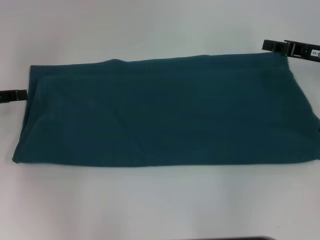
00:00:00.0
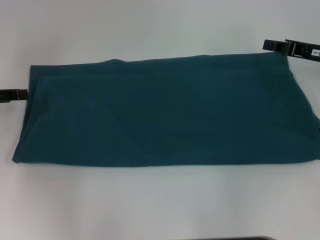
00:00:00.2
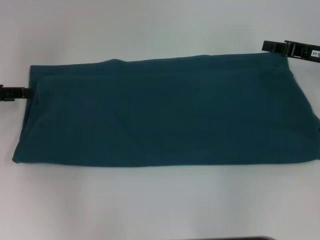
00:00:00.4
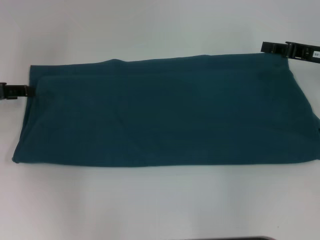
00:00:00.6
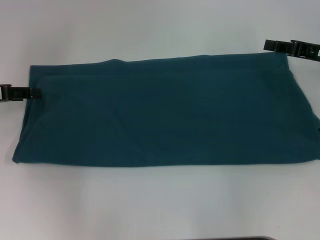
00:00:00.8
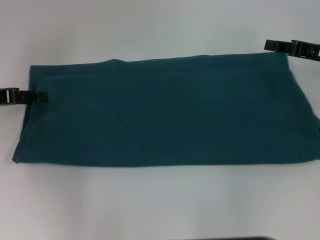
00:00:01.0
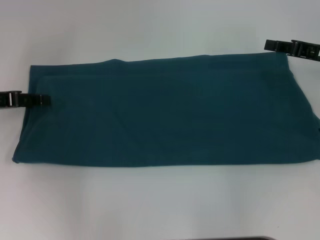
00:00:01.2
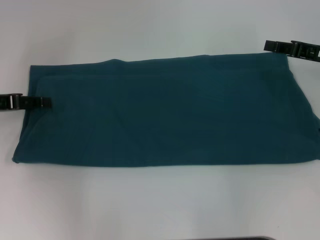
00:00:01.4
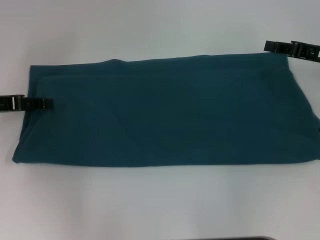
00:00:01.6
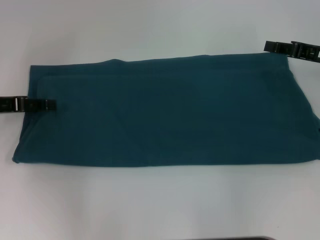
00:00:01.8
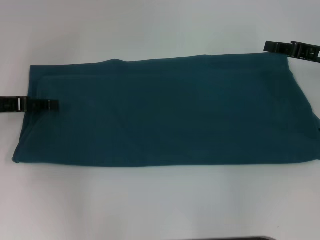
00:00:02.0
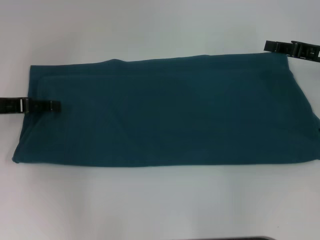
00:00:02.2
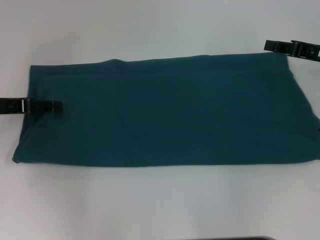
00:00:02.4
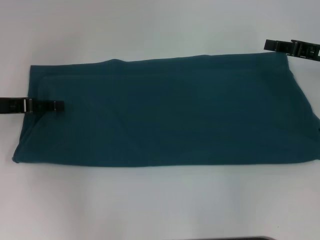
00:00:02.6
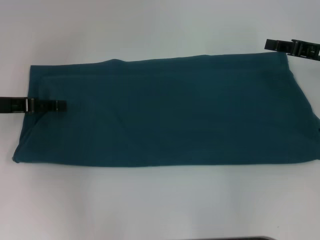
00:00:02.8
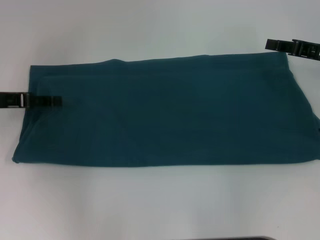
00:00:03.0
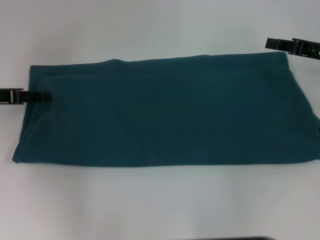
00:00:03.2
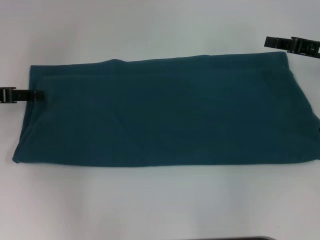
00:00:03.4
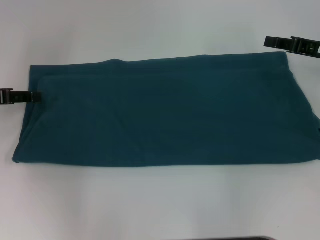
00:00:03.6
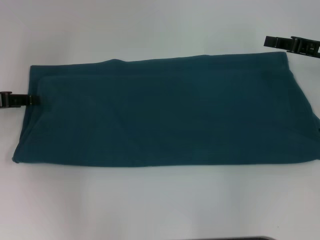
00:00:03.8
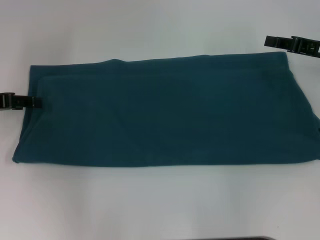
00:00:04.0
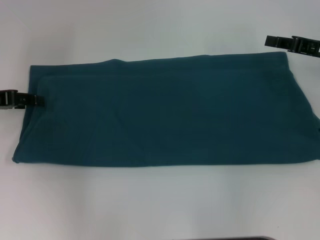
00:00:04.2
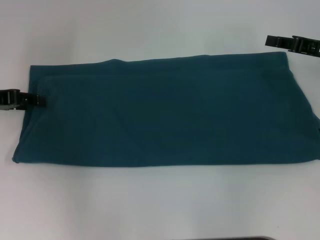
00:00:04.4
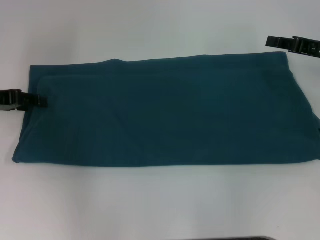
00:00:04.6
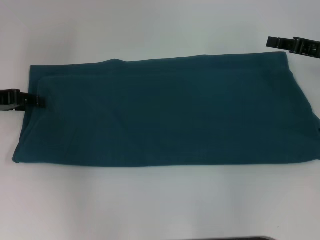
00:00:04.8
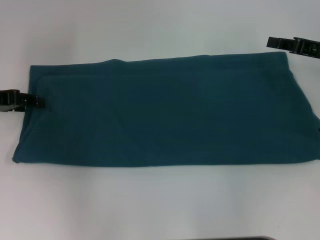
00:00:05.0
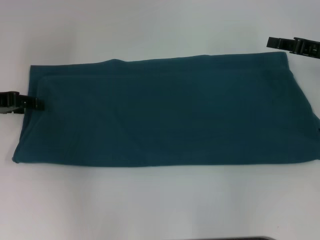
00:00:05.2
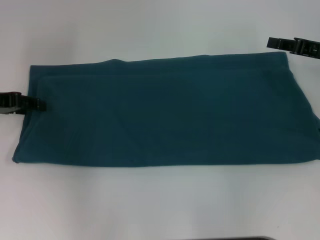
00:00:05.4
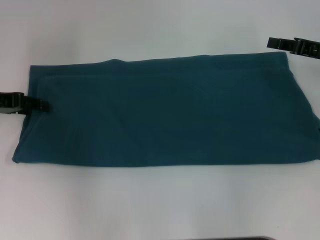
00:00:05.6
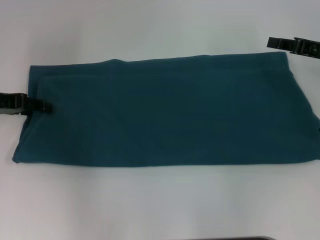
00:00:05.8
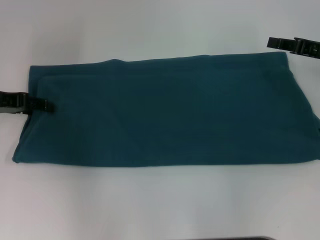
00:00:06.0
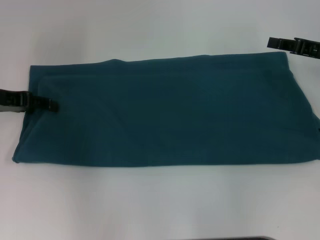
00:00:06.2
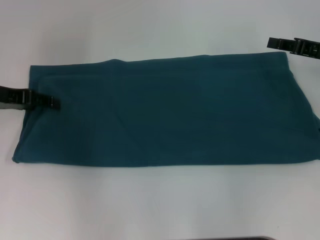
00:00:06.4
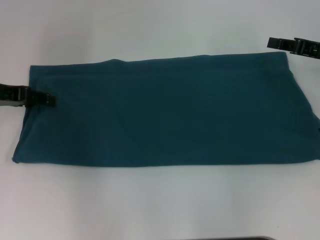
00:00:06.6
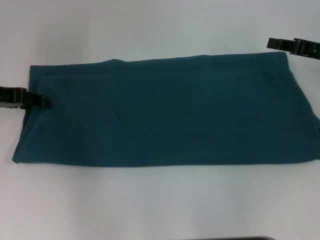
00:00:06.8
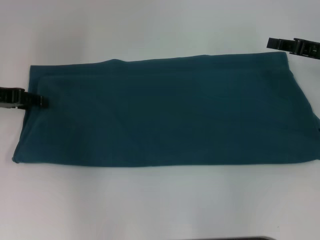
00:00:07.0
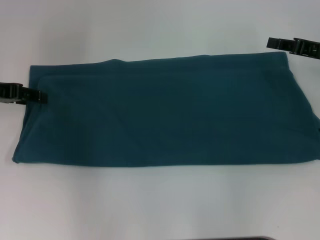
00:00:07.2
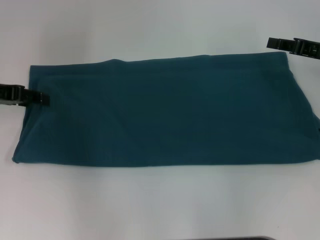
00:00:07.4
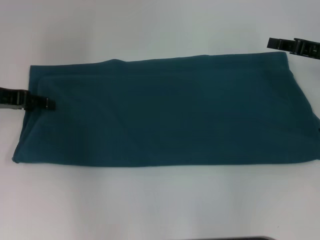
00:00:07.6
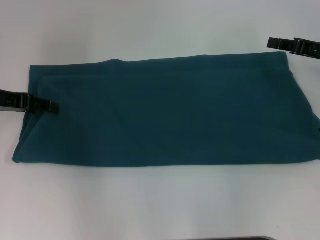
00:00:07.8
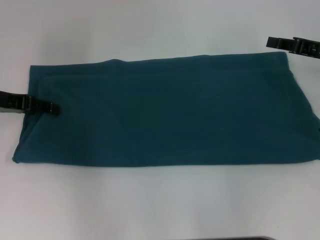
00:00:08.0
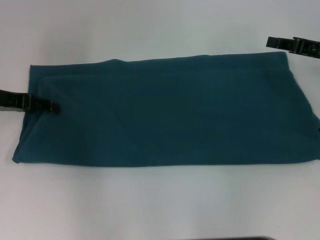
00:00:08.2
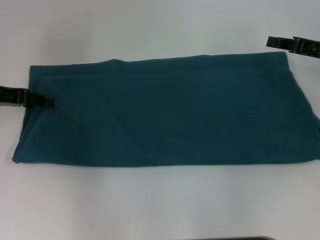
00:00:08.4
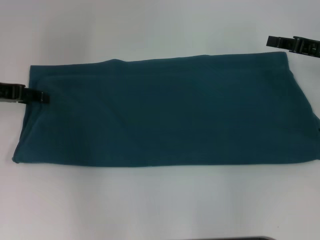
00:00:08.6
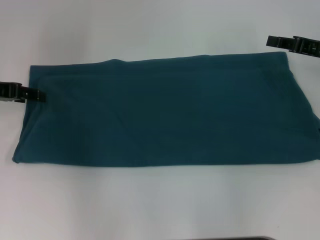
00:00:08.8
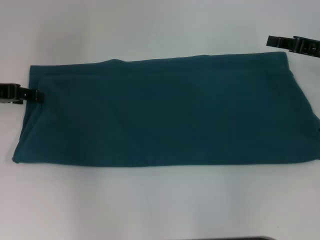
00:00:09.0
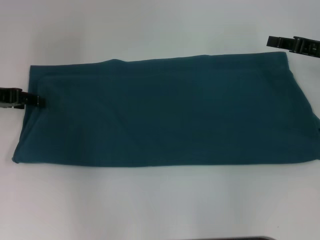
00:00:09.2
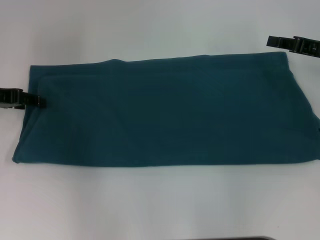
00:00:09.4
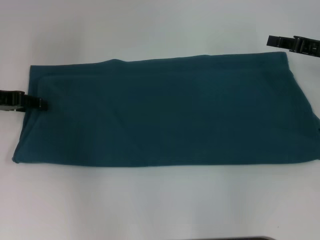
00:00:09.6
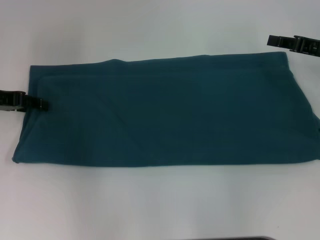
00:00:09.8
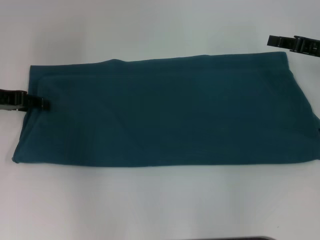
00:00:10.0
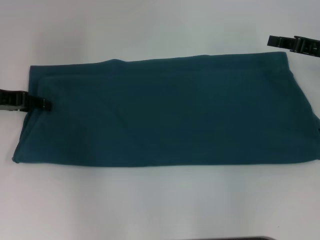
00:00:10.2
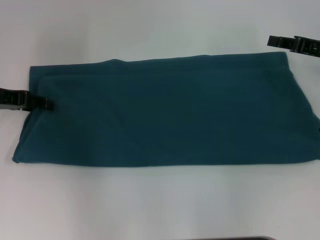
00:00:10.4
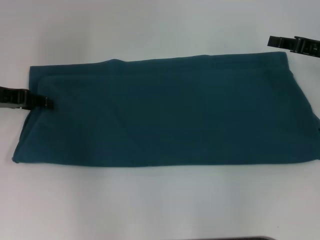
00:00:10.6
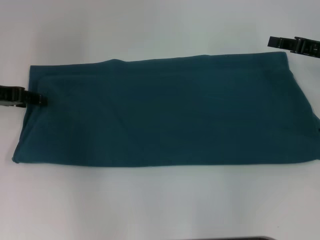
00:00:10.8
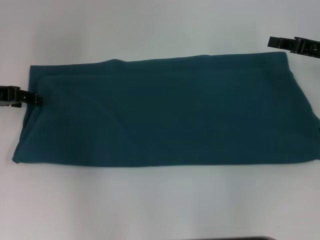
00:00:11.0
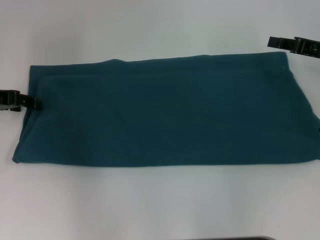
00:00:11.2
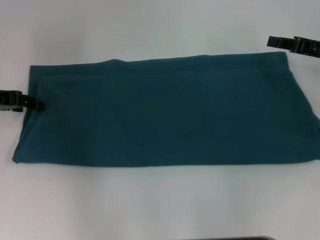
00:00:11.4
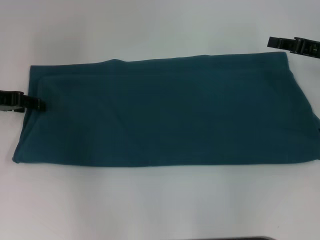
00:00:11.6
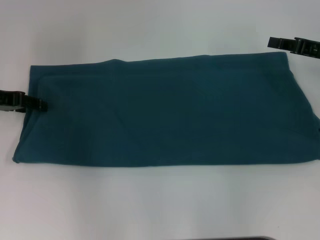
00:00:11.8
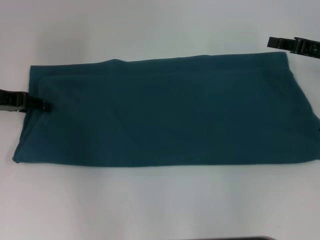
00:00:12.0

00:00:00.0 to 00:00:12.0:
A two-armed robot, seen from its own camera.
00:00:00.0 to 00:00:06.0: The grippers make only small movements.
00:00:07.6 to 00:00:09.0: Both grippers stay about where they are.
00:00:10.4 to 00:00:12.0: Both grippers stay about where they are.

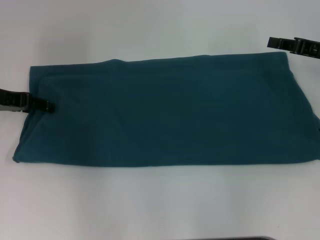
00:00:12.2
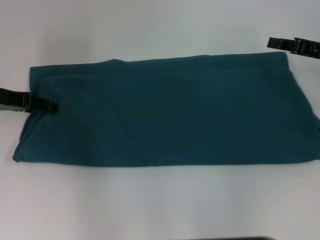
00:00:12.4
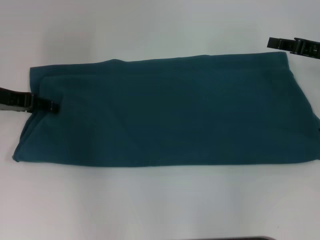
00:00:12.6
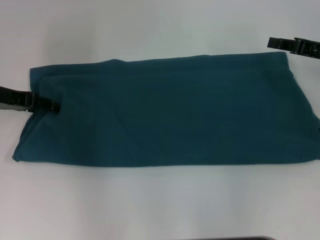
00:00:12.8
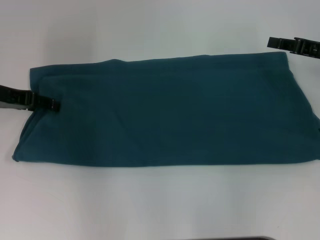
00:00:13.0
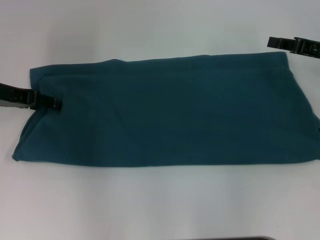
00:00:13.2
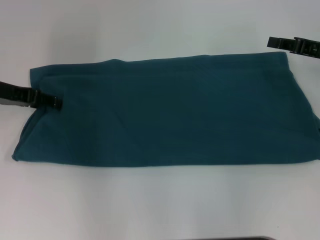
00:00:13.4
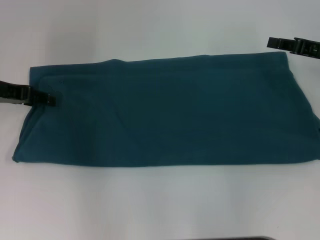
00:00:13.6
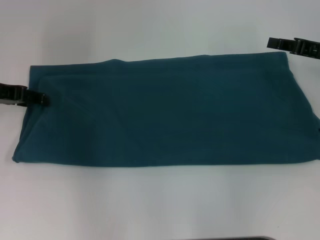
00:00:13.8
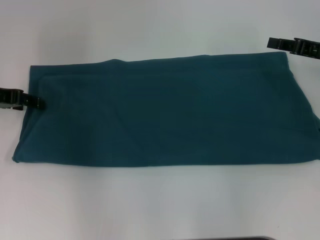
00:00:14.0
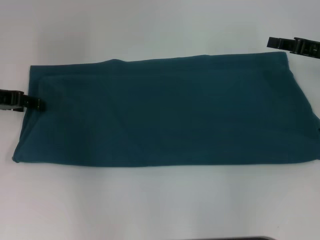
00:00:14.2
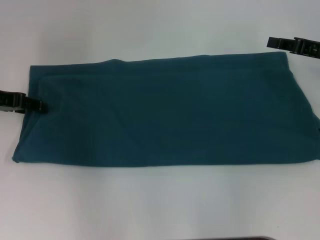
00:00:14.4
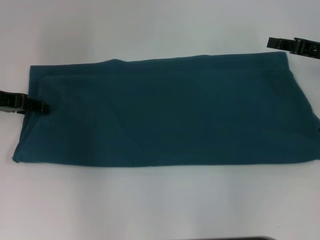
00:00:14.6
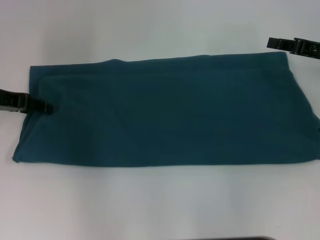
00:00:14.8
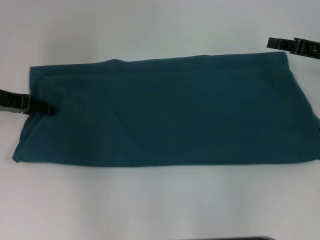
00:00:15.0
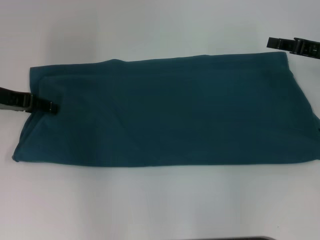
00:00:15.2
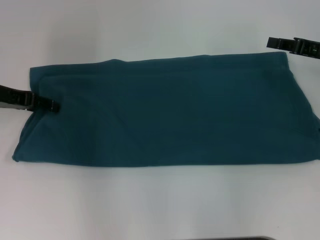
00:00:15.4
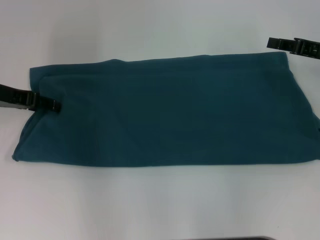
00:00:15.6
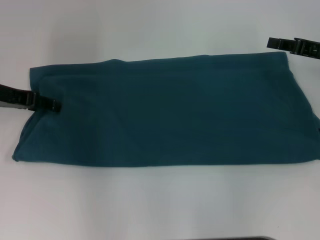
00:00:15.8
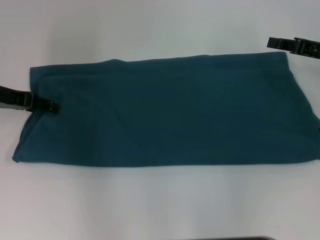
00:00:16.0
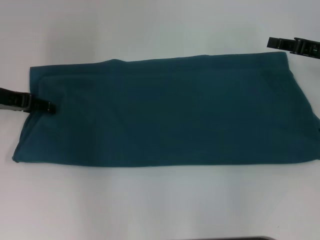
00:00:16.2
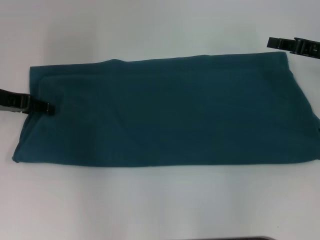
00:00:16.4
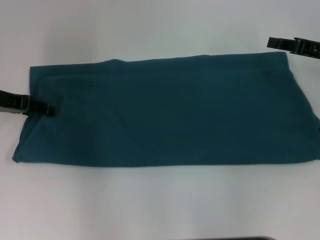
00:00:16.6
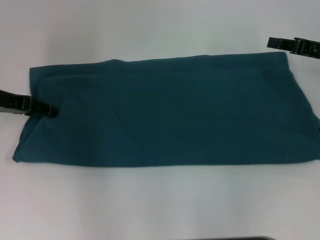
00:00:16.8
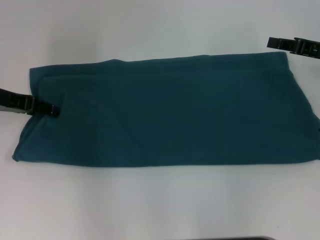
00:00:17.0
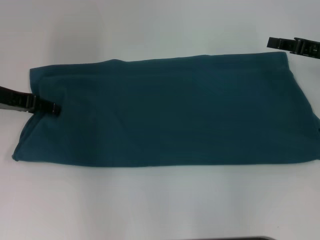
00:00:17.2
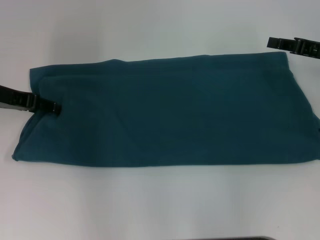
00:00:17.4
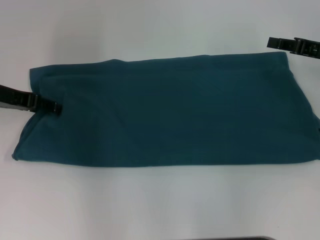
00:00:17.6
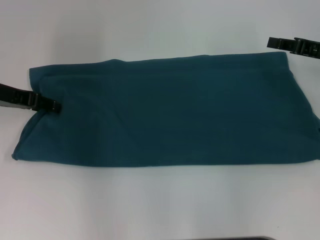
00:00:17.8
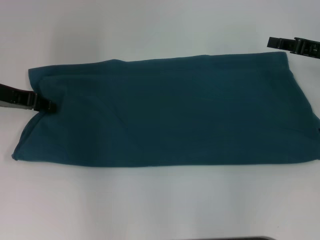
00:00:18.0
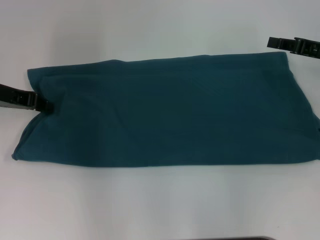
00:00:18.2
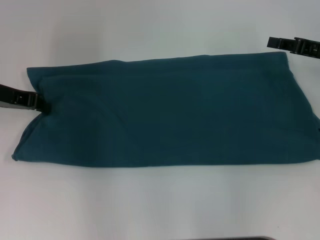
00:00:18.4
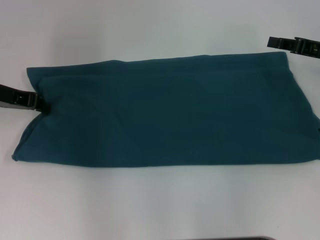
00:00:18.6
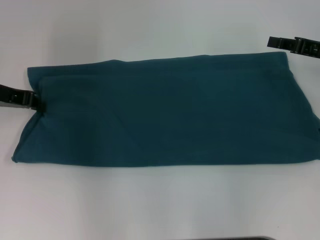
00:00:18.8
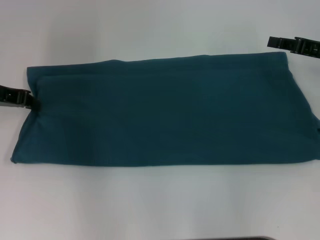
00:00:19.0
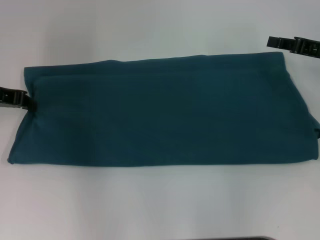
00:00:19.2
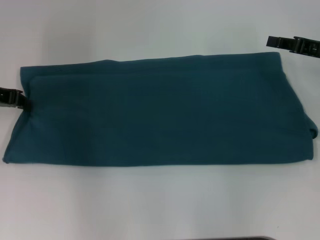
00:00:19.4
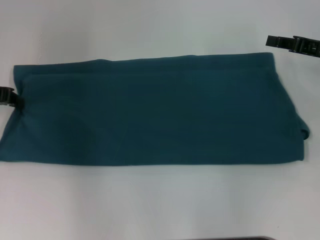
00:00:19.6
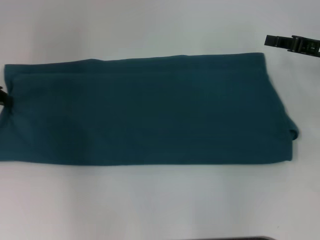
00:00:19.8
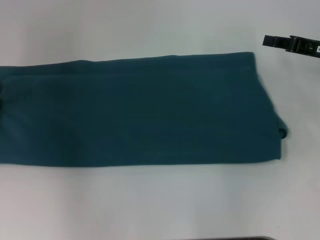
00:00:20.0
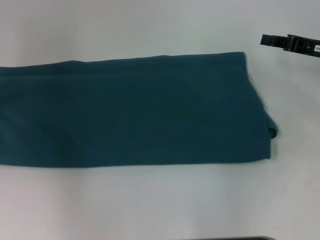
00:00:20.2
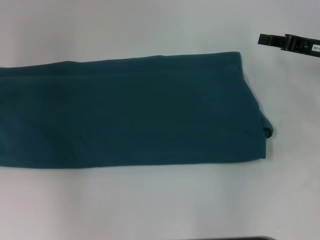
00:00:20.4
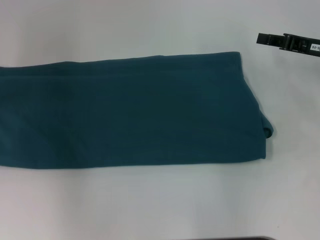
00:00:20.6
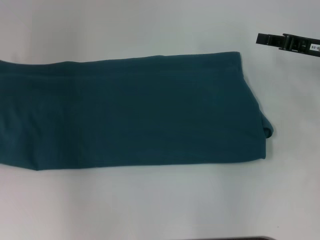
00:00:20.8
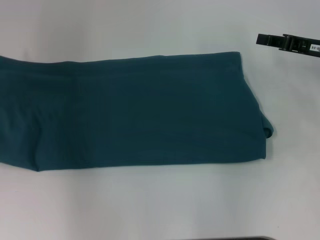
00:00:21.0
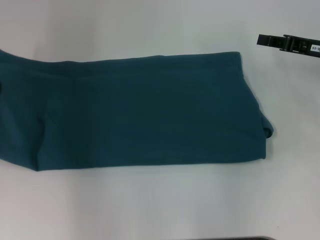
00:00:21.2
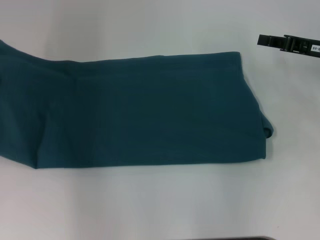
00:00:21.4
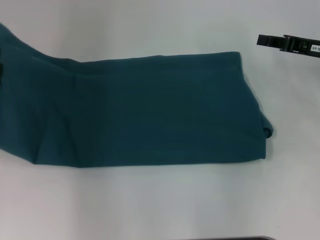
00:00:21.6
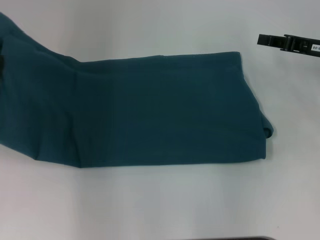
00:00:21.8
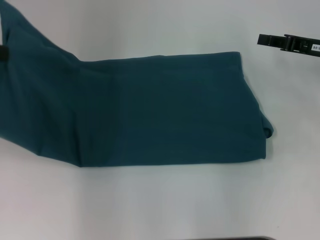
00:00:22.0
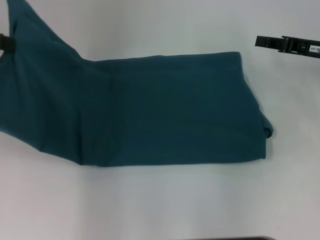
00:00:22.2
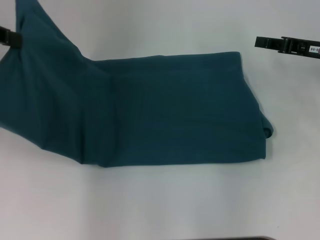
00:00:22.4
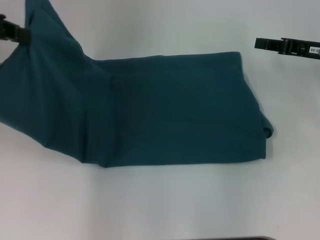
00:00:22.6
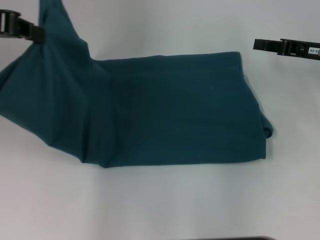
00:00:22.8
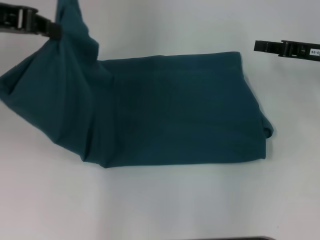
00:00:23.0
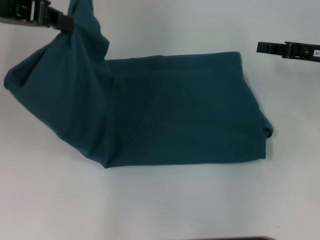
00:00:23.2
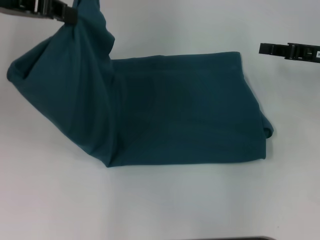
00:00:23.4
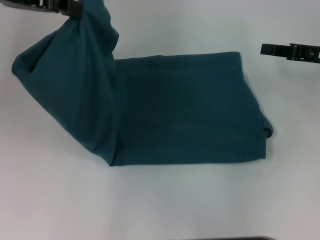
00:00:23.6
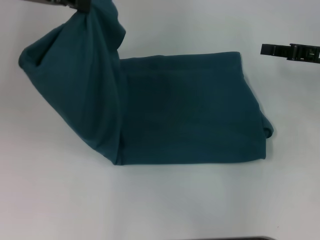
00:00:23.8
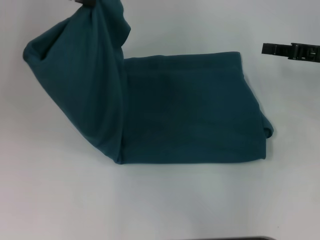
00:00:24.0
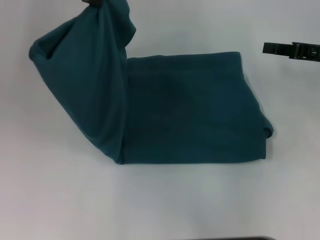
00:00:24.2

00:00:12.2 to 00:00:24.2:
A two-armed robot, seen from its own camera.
00:00:12.2 to 00:00:15.2: Both grippers stay put.
00:00:15.2 to 00:00:18.2: Both grippers stay about where they are.
00:00:18.2 to 00:00:19.8: The left gripper changes place by approximately 5 cm.
00:00:19.8 to 00:00:21.2: The left gripper travels upward by about 5 cm.
00:00:21.2 to 00:00:22.6: The left gripper travels upward and to the right by approximately 10 cm.
00:00:22.6 to 00:00:24.2: The left gripper travels to the right by roughly 10 cm.
